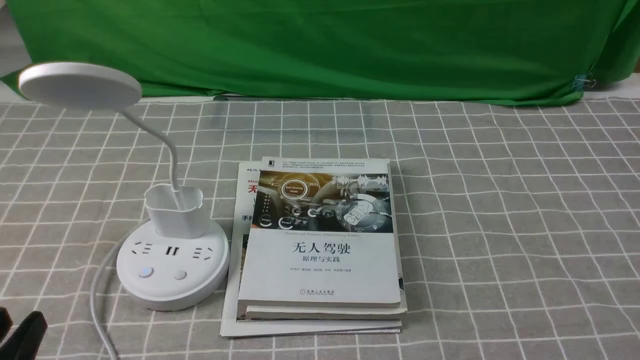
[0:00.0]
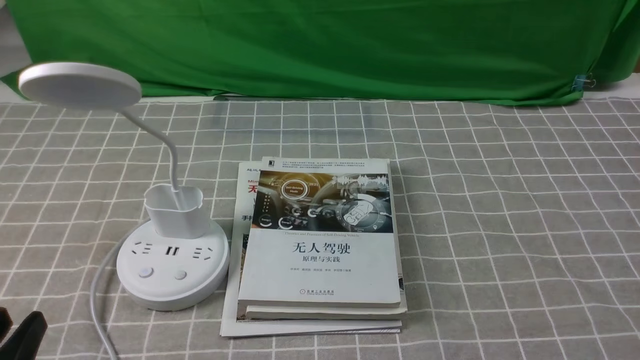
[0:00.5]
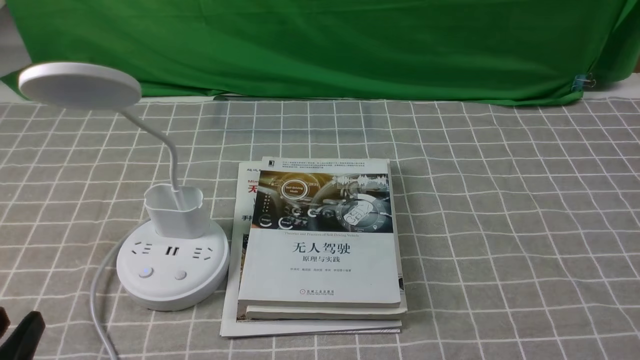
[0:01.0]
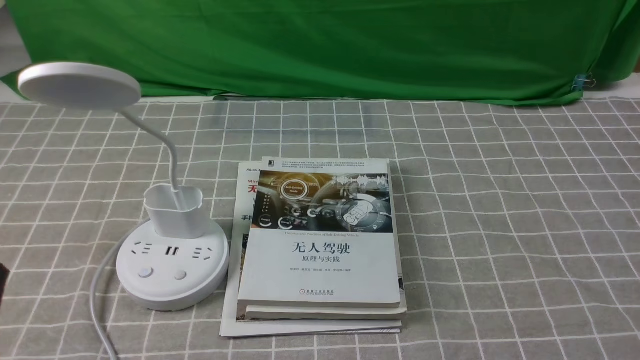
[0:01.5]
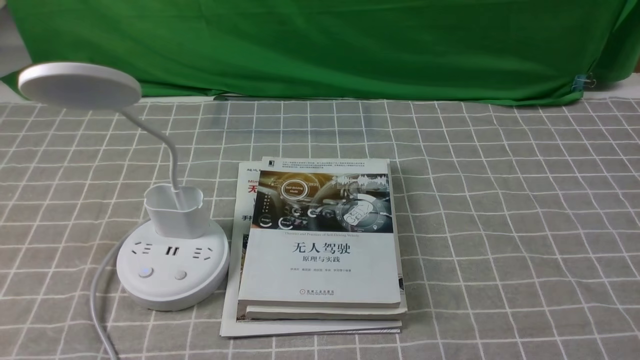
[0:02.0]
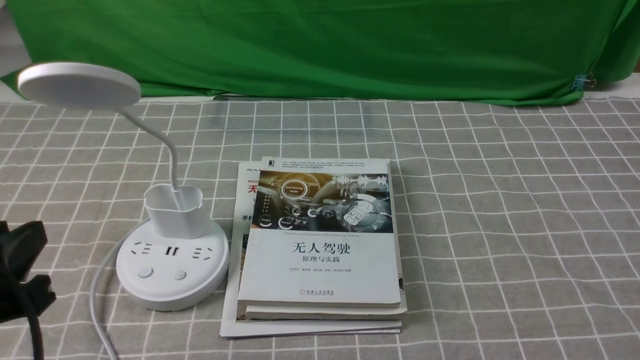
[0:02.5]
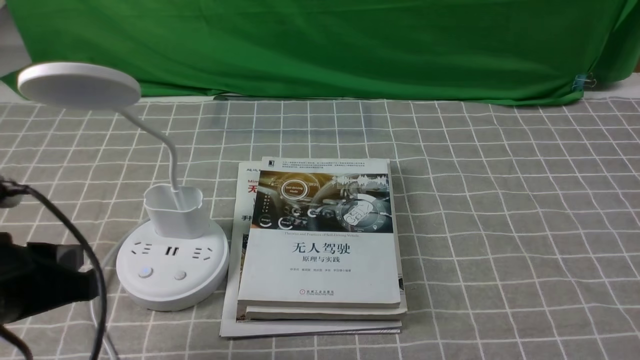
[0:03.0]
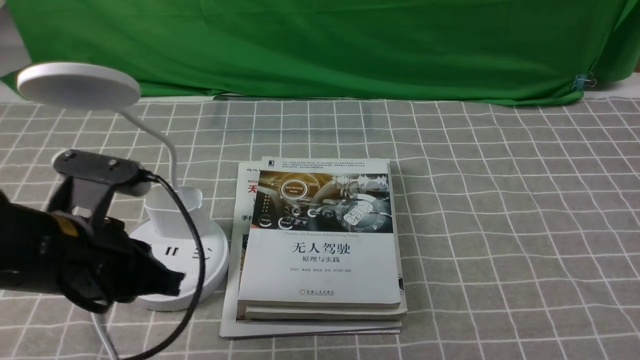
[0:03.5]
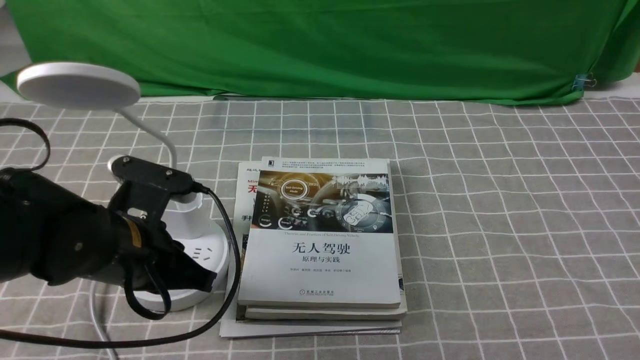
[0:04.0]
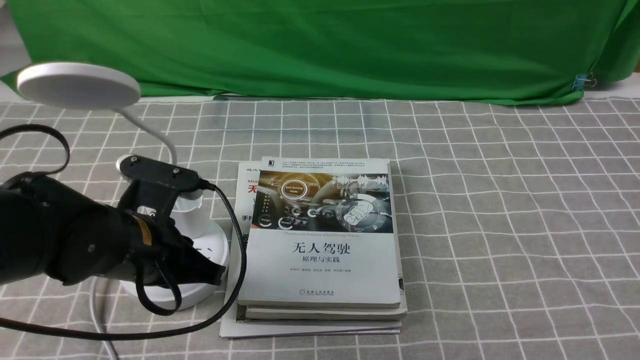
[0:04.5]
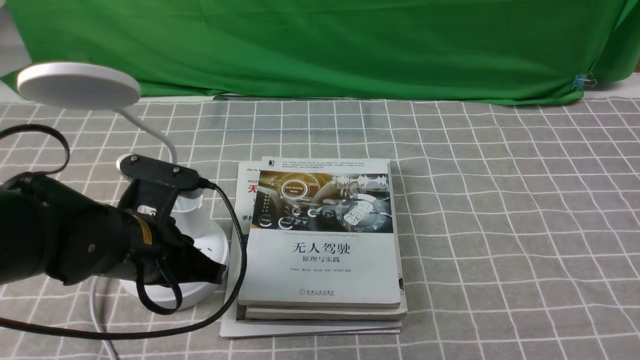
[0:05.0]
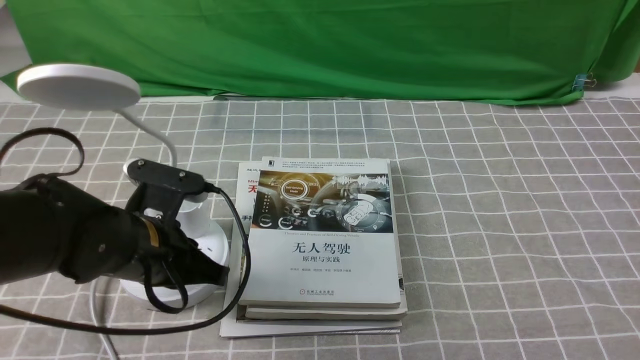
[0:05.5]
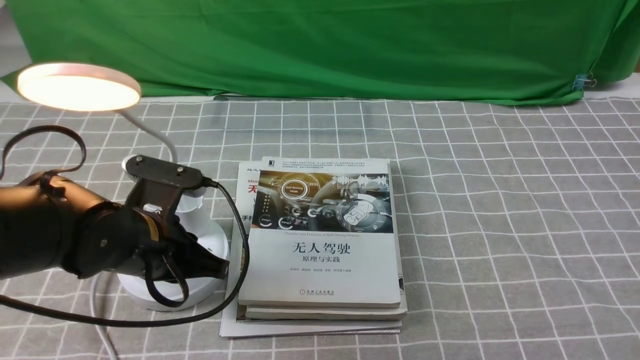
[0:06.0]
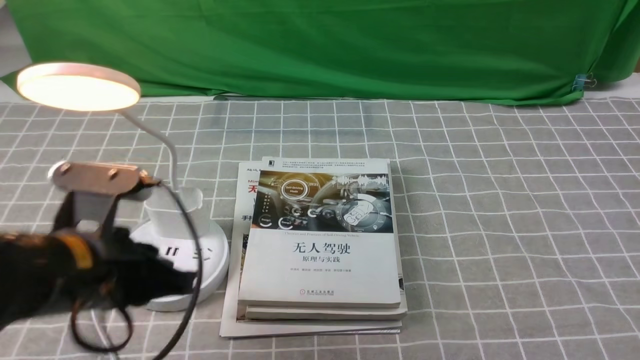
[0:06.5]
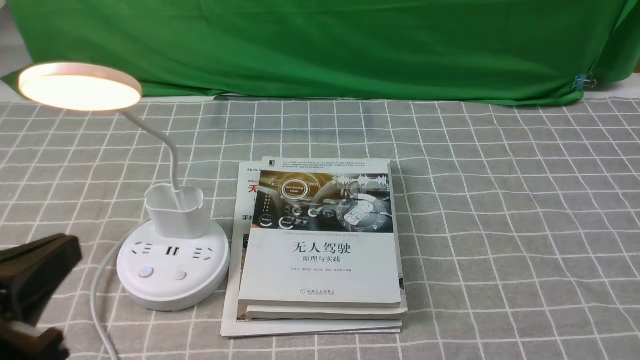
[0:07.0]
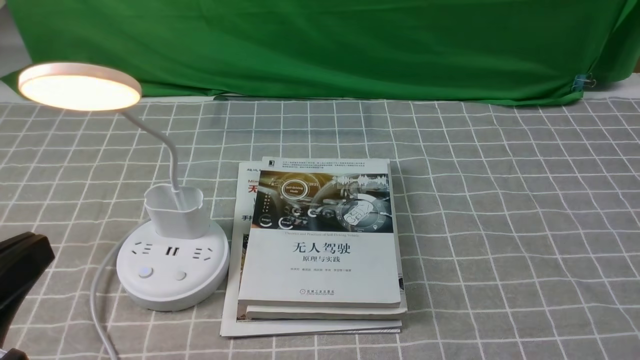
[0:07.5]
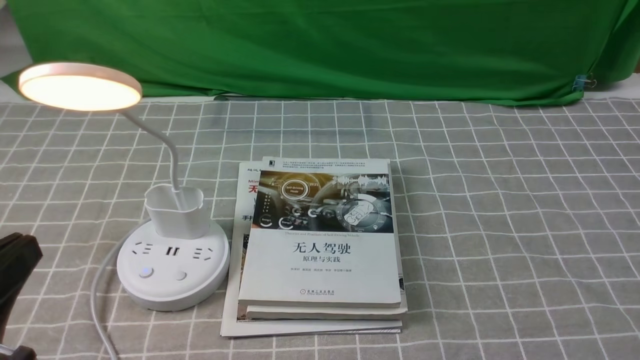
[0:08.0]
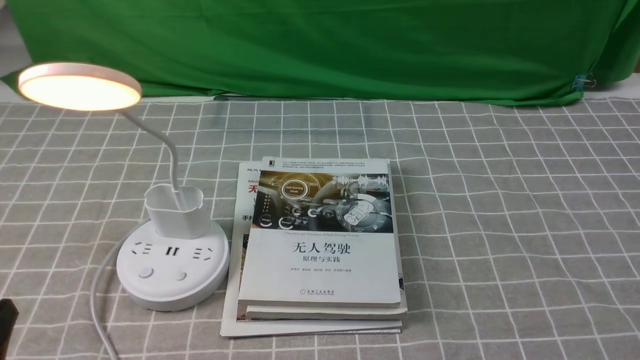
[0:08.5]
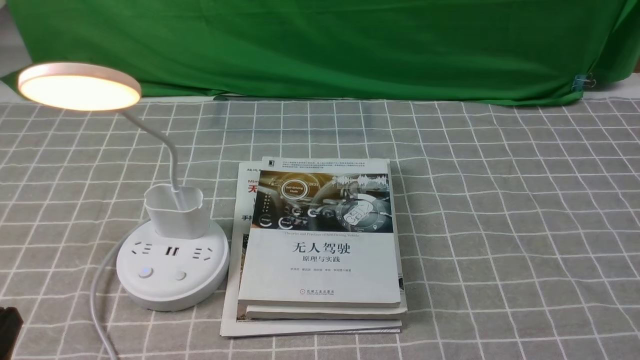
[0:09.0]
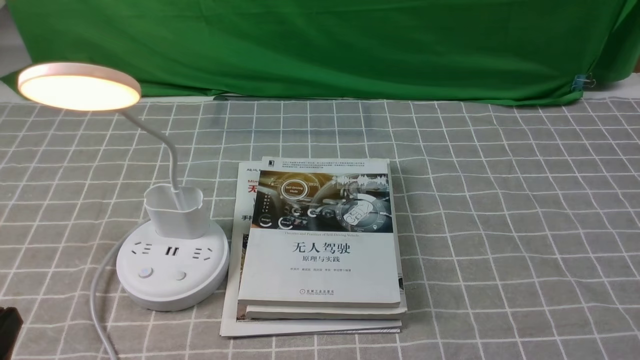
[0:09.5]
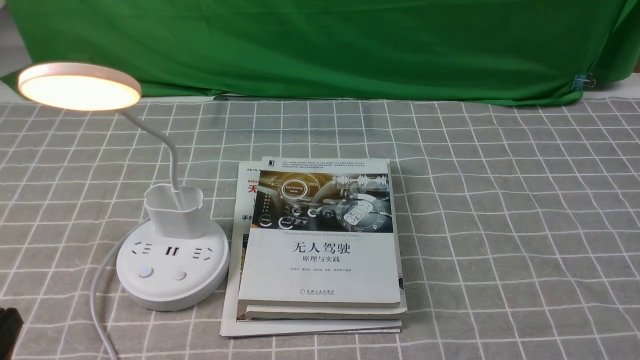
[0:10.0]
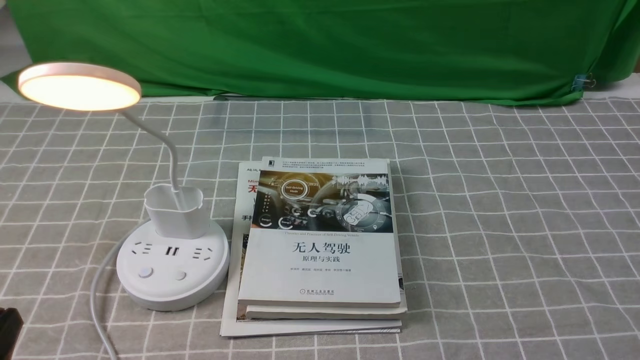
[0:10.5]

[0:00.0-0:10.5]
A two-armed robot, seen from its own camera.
Step, 0:00.0 to 0:06.0: use the left arm to press the button switch on the lamp holder.
0:02.0 to 0:04.0: The left gripper moves forward, downward and to the right, approximately 20 cm, and closes up.
0:06.5 to 0:08.5: The left gripper is displaced backward and to the left by about 15 cm.
0:08.5 to 0:10.5: Neither gripper changes place.
